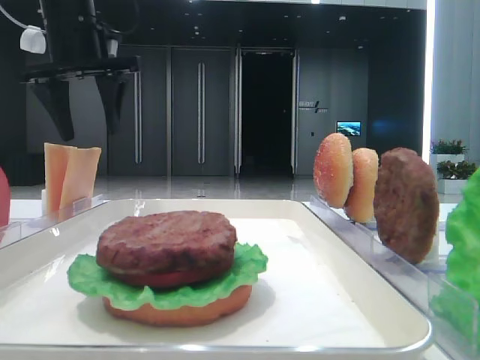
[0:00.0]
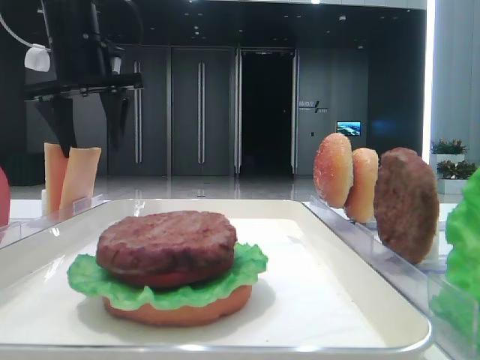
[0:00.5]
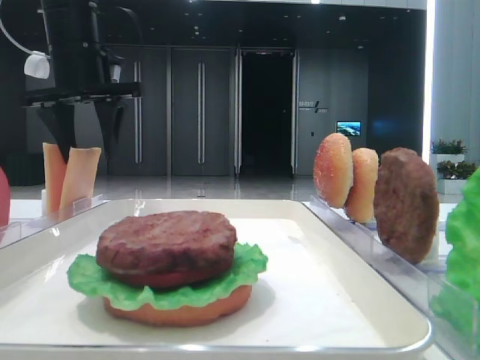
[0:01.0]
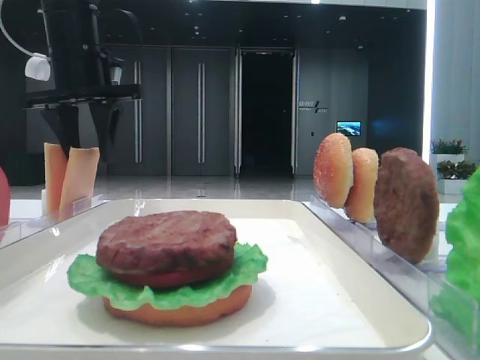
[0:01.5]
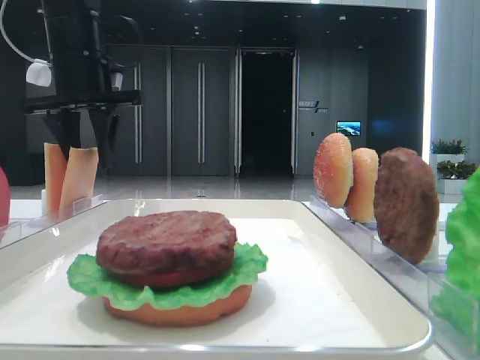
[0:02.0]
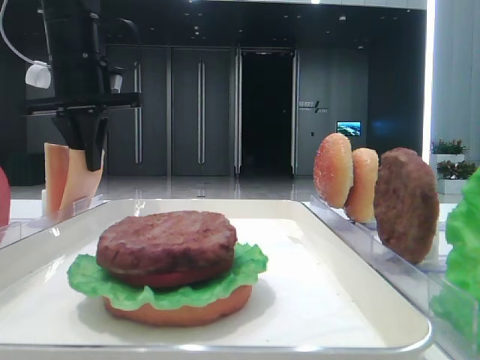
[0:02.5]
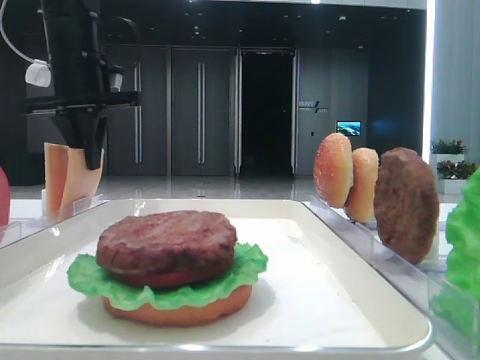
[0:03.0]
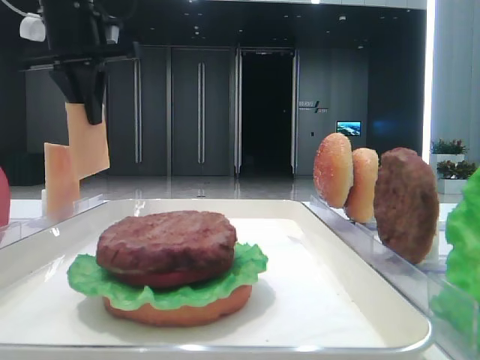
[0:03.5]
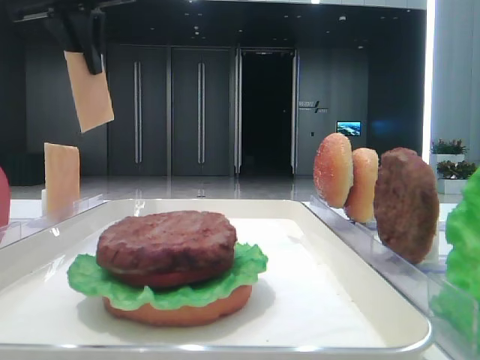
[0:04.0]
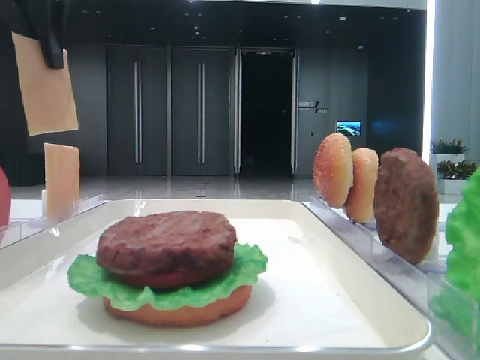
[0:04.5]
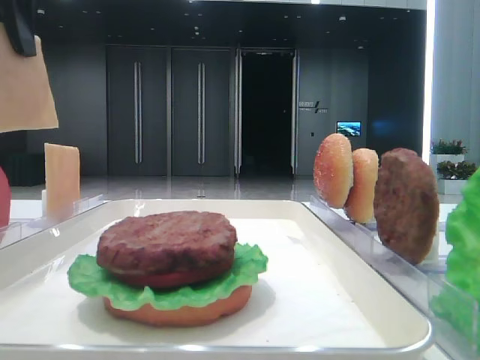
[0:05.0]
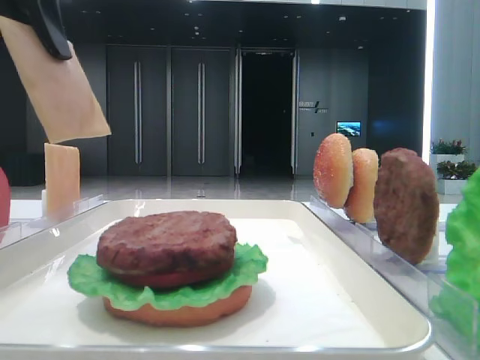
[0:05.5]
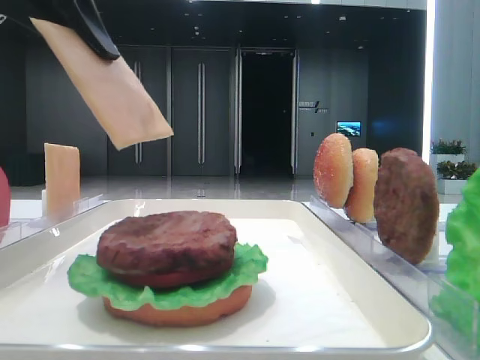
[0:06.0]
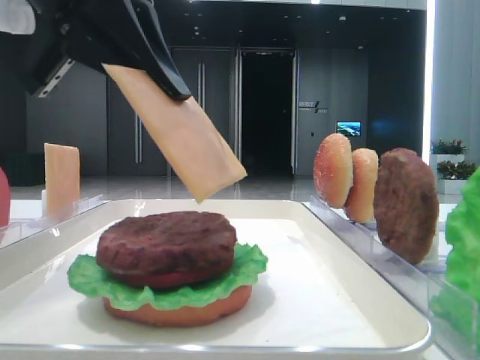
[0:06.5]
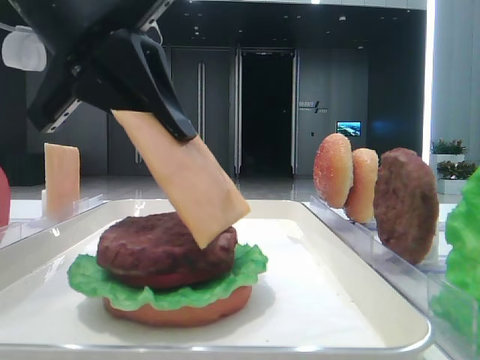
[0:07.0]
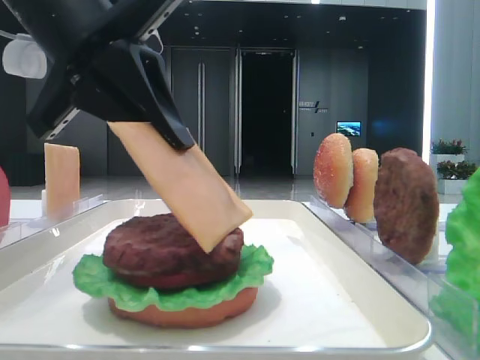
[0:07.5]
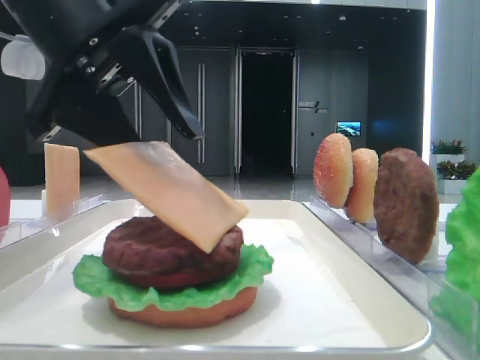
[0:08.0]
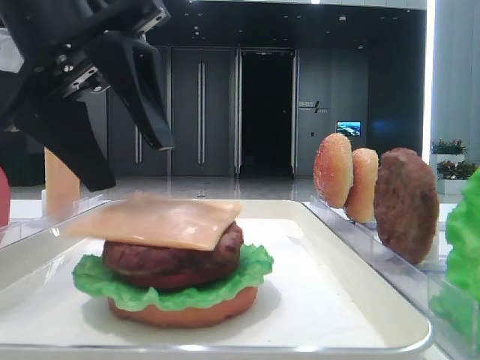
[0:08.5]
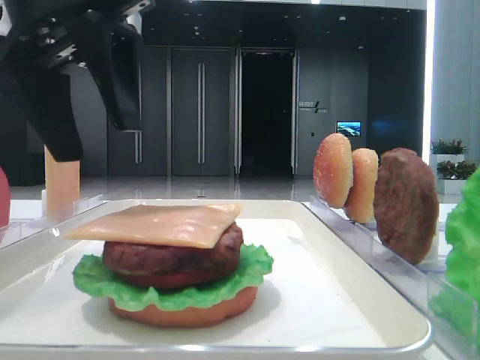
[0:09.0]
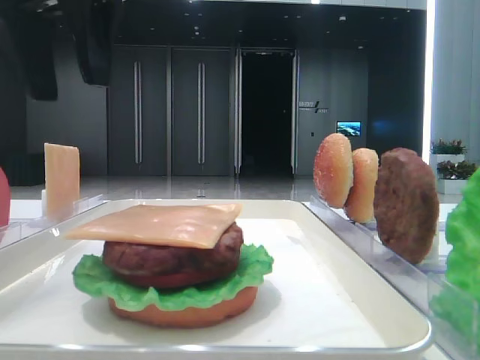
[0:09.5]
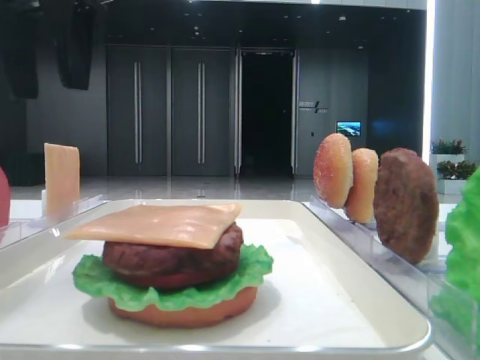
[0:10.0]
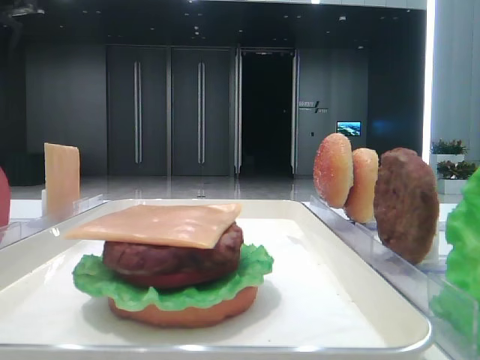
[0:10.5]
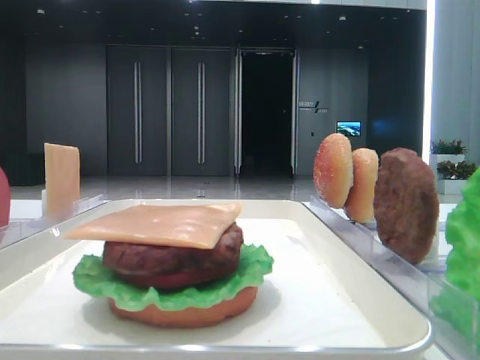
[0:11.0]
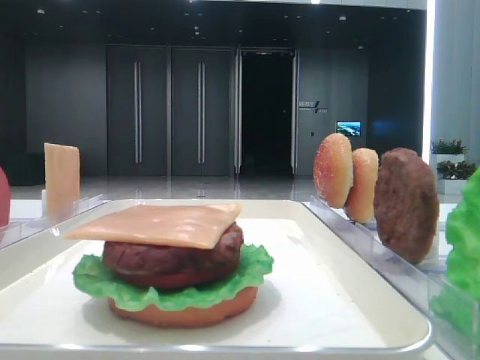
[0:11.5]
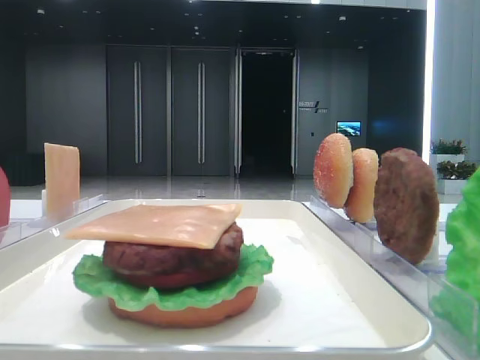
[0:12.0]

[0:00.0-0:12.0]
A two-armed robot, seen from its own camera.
Step, 0:00.0 to 0:02.0: Pick up the cheese slice with the left hand.
Step, 0:02.5 to 0:08.5: Place the cheese slice on the patty with the left hand.
0:00.0 to 0:02.0: The grippers make only small movements.
0:02.0 to 0:04.0: The left gripper moves upward, roughly 10 cm, and closes.
0:04.0 to 0:06.0: The left gripper is displaced backward by approximately 15 cm.
0:06.0 to 0:08.0: The left gripper travels downward and to the right by some 10 cm, and opens its fingers.
0:08.0 to 0:10.0: The left gripper goes about 10 cm upward.
0:10.0 to 0:12.0: The left gripper moves to the left, some 15 cm.

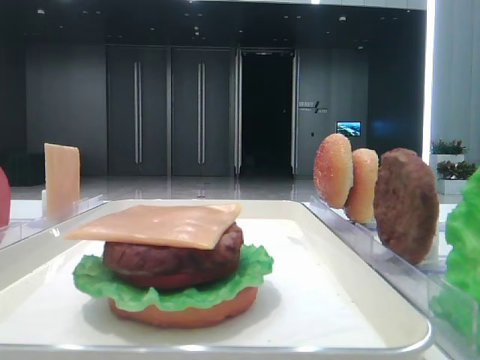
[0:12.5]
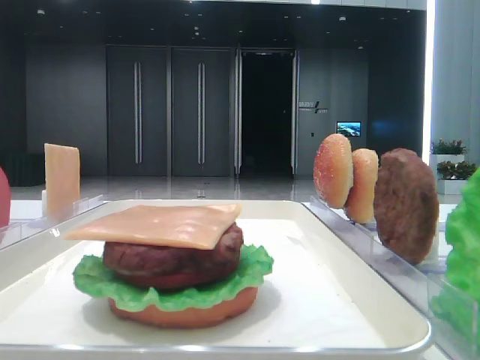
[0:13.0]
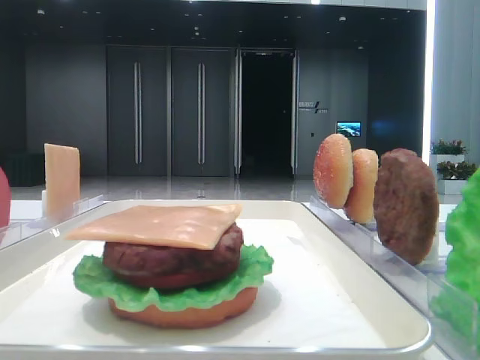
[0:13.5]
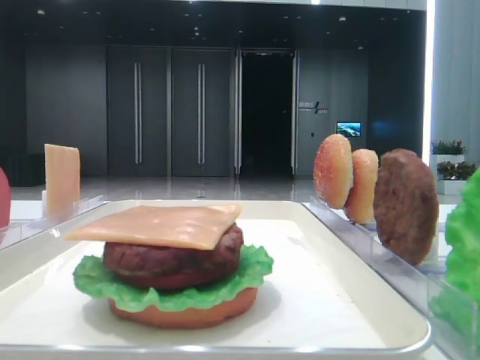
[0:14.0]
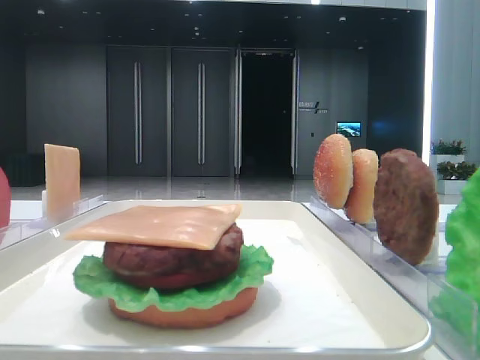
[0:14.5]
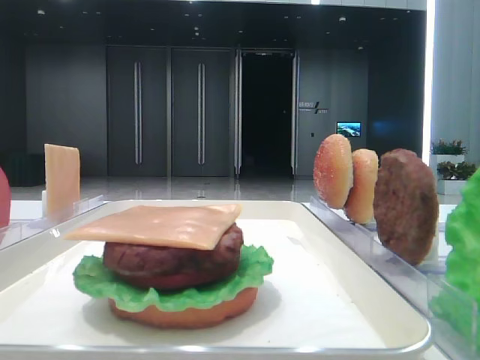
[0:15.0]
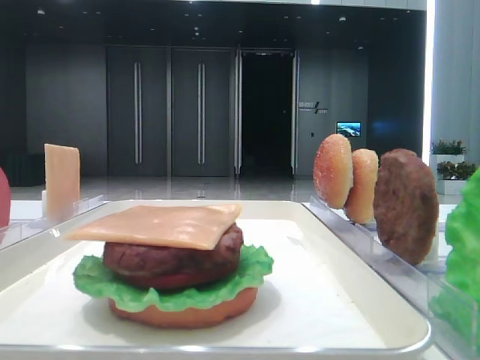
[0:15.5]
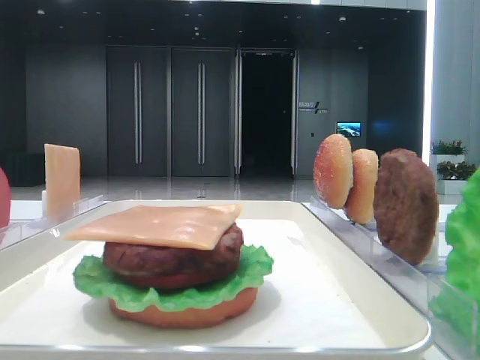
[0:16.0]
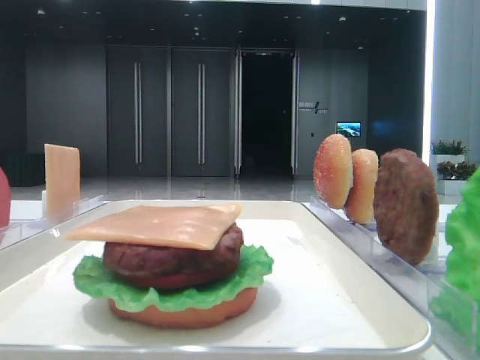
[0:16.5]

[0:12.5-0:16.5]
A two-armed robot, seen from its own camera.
0:14.5 to 0:16.5: Both grippers stay put.

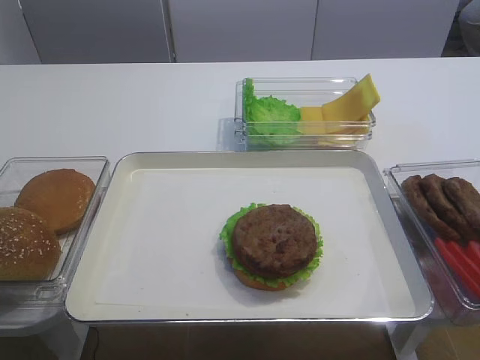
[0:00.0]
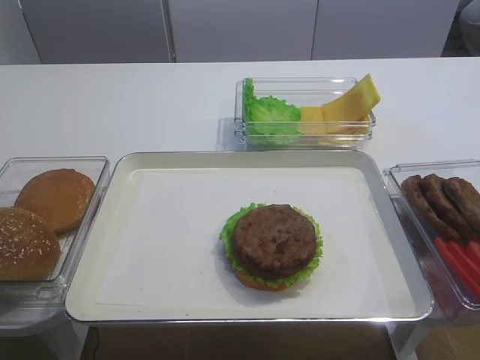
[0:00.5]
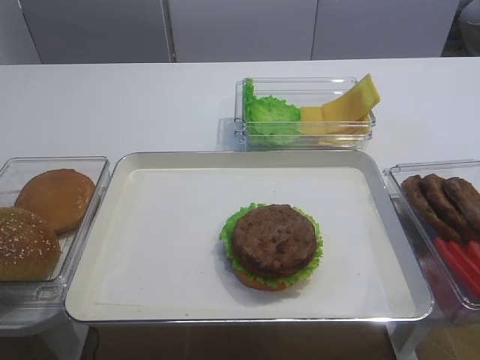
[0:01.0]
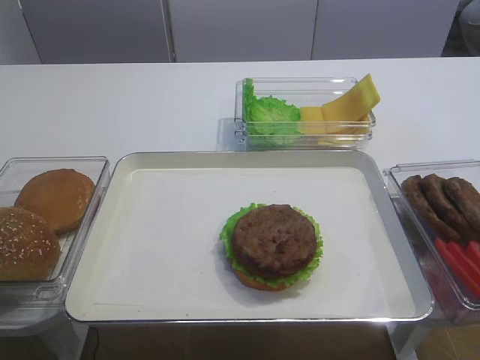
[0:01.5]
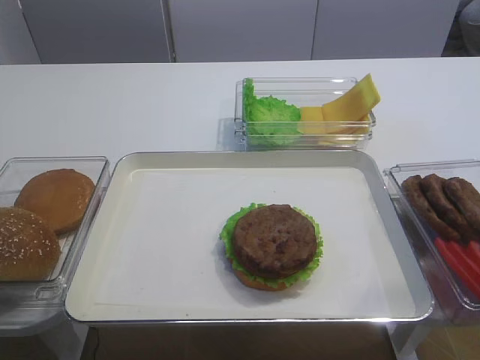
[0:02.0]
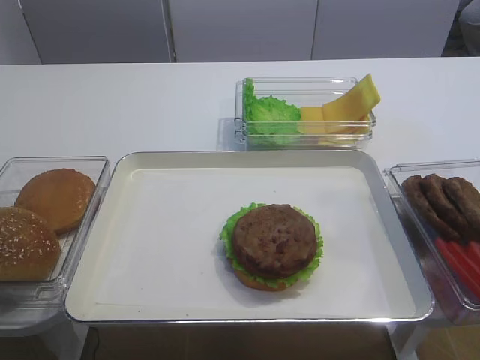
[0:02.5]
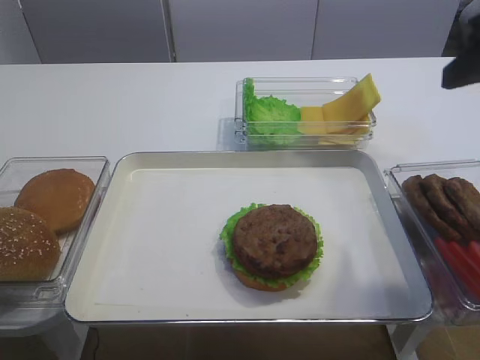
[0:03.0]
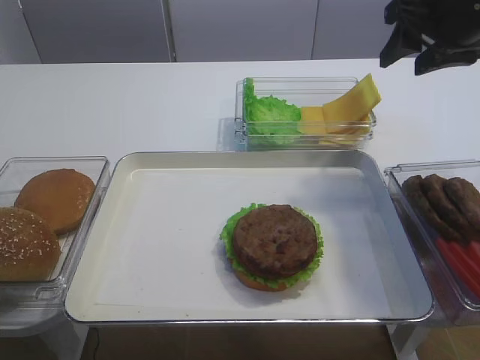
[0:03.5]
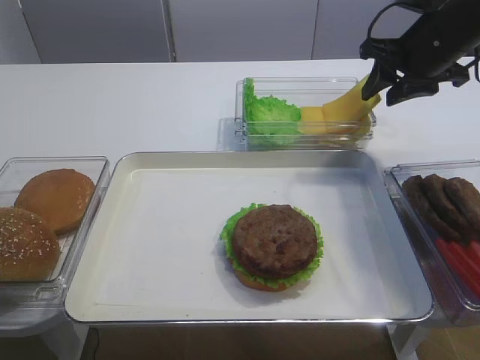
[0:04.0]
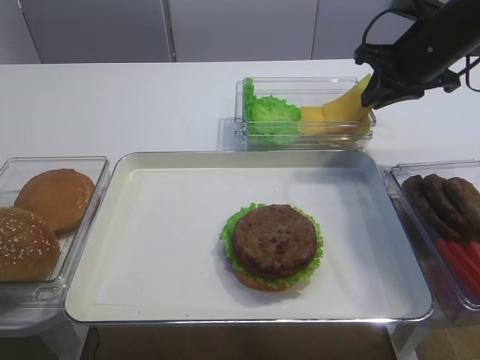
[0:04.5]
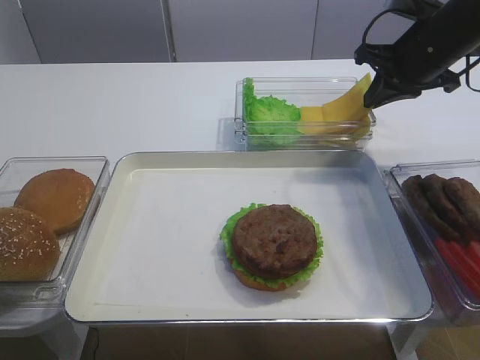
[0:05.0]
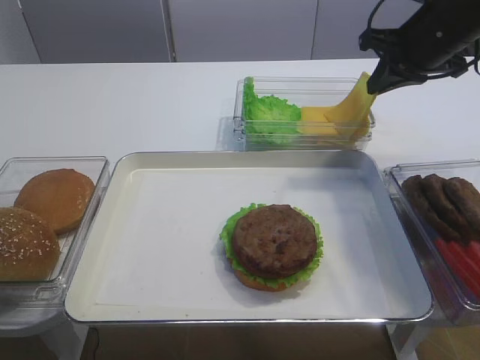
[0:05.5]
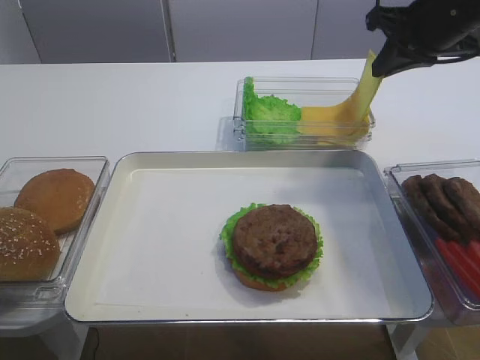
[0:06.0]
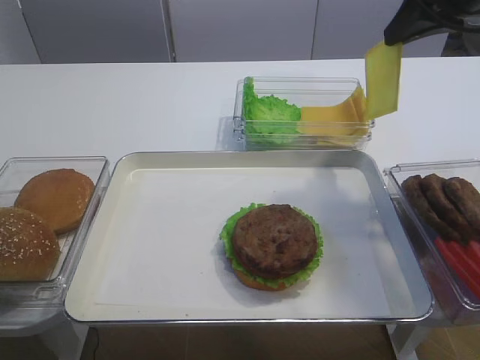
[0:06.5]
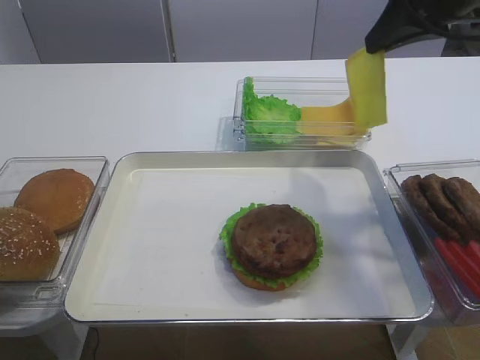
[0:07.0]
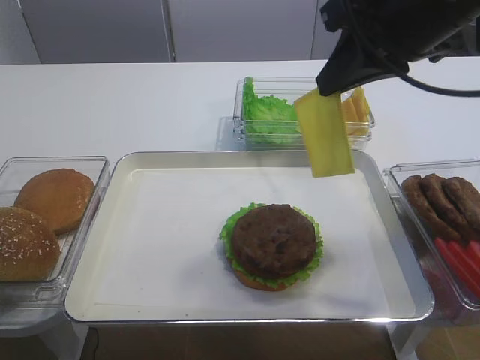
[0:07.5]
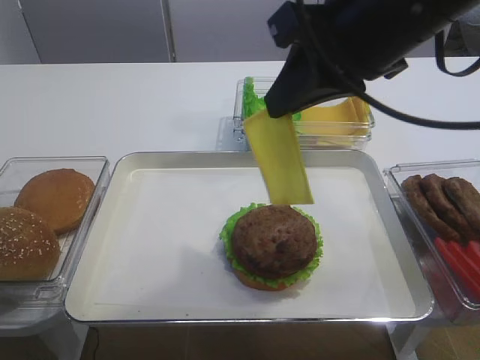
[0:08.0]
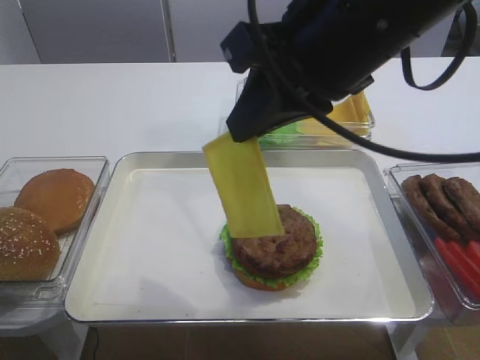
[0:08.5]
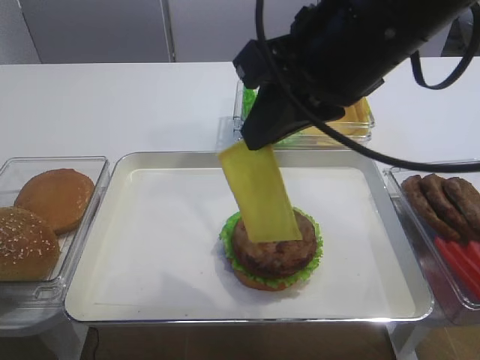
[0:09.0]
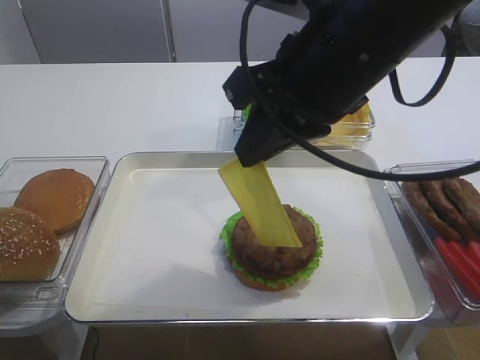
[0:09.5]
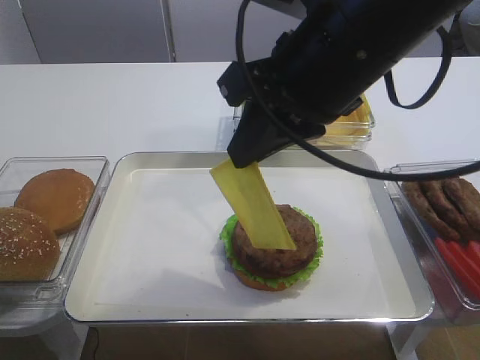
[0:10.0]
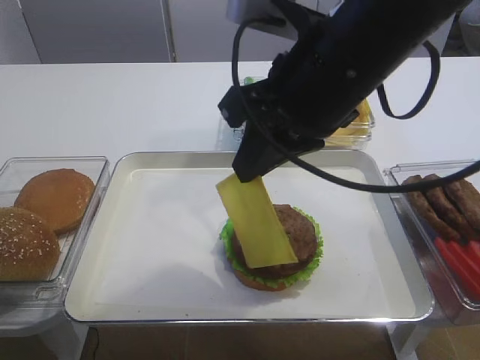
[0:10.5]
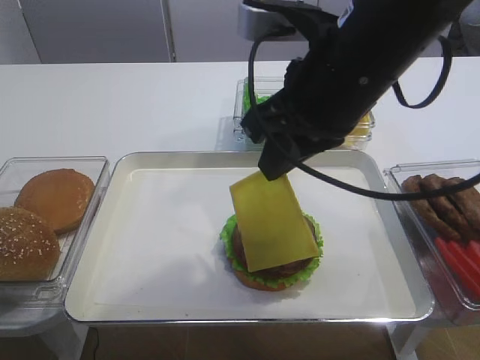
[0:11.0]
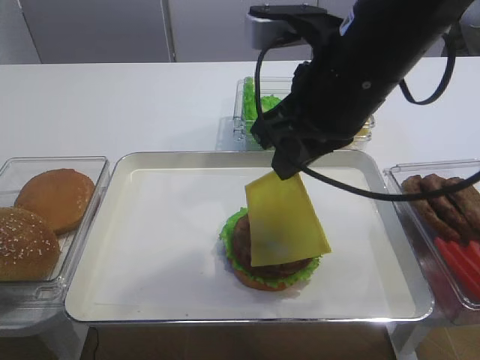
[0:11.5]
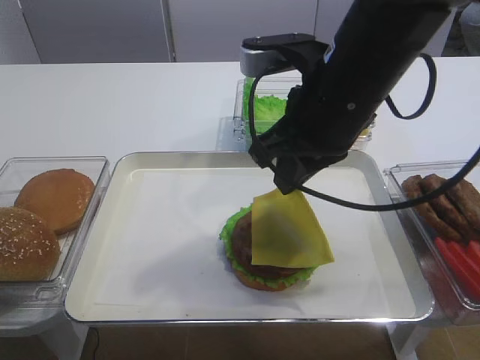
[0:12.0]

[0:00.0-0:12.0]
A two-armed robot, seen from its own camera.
Step, 0:00.0 to 0:05.5: Pick up the cheese slice with the right gripper.
0:02.0 to 0:04.0: The right gripper moves forward, some 40 cm.
0:04.0 to 0:06.0: The right gripper closes its fingers.
0:06.0 to 0:08.0: The right gripper heads backward and to the left, covering some 20 cm.
0:08.0 to 0:10.0: The grippers make only small movements.
0:10.0 to 0:12.0: The right gripper goes approximately 5 cm downward.
